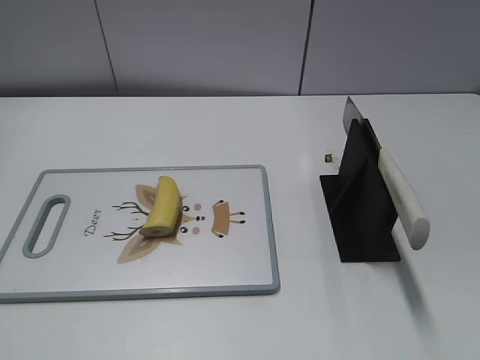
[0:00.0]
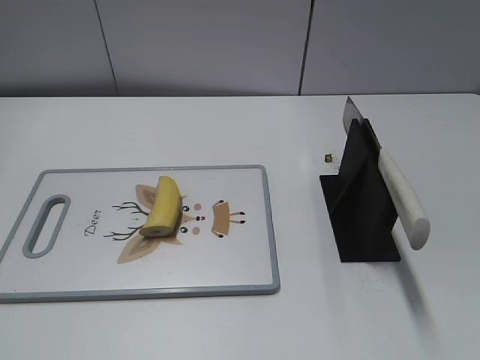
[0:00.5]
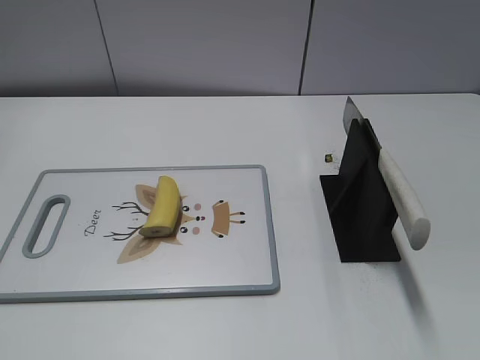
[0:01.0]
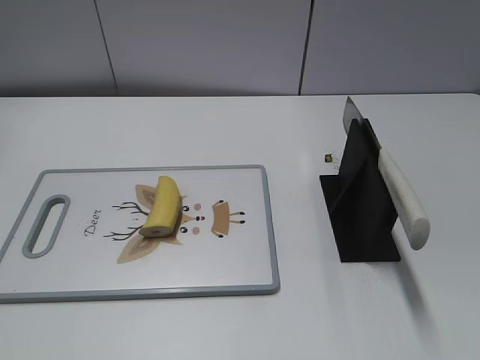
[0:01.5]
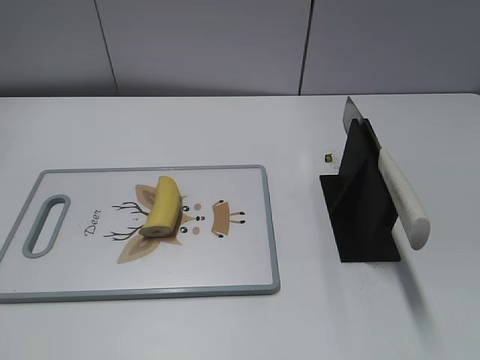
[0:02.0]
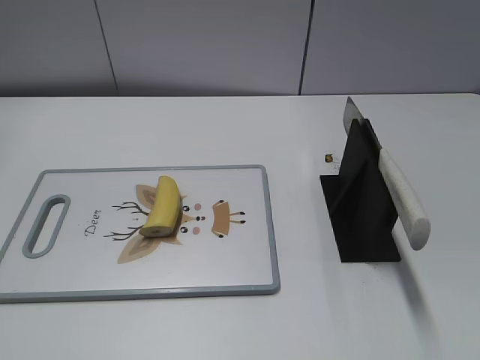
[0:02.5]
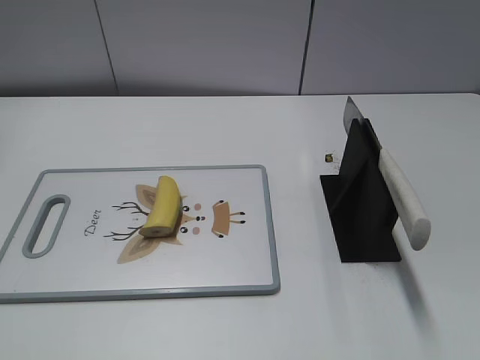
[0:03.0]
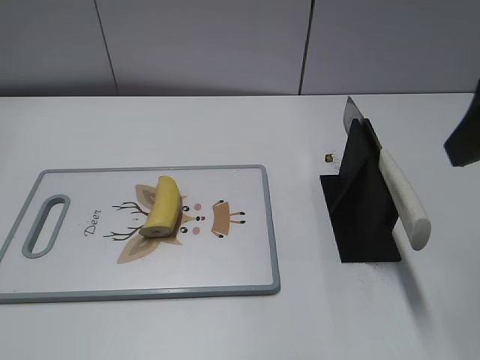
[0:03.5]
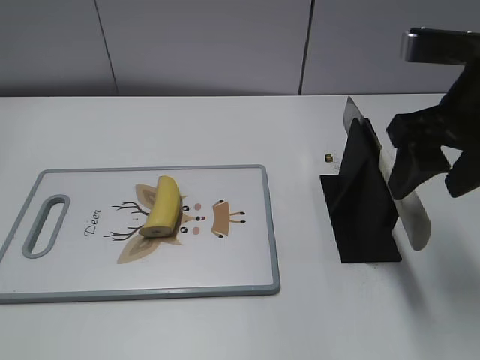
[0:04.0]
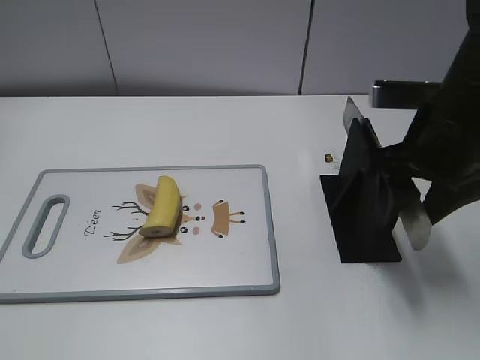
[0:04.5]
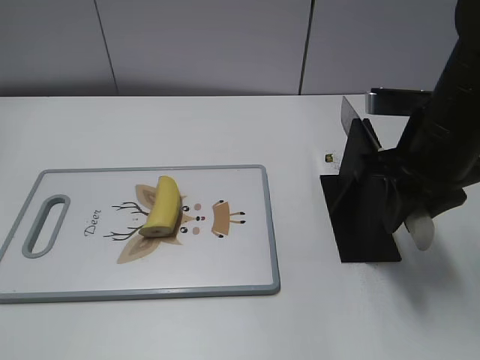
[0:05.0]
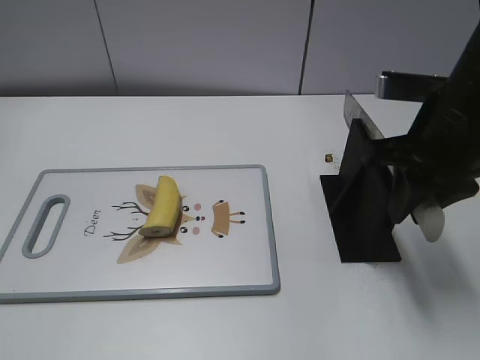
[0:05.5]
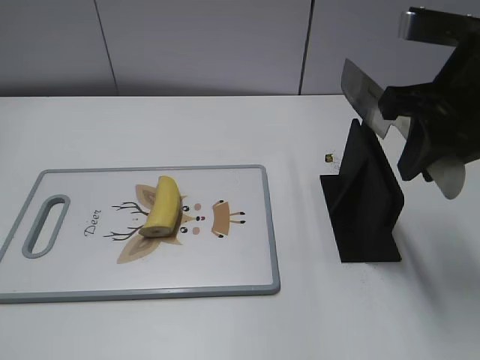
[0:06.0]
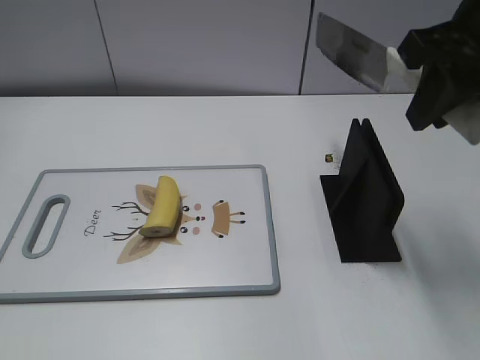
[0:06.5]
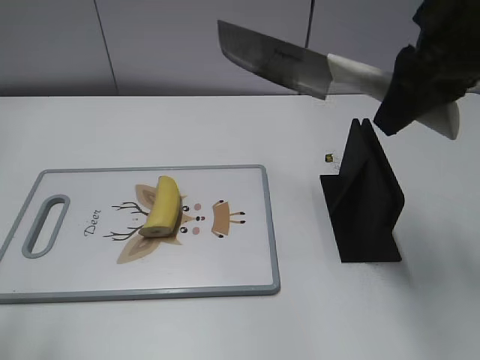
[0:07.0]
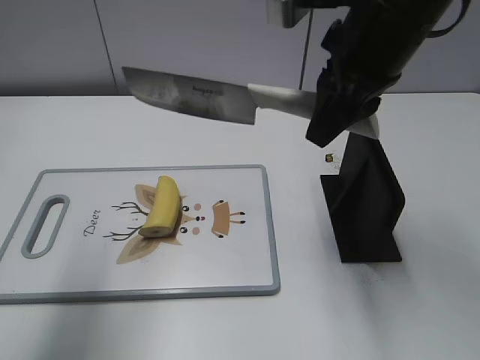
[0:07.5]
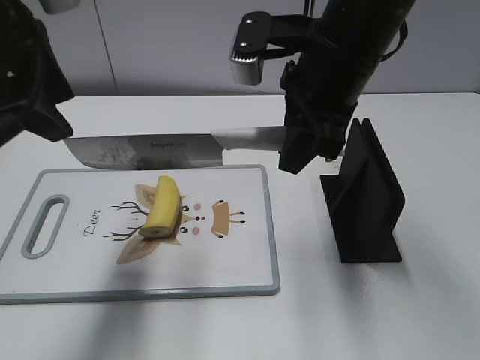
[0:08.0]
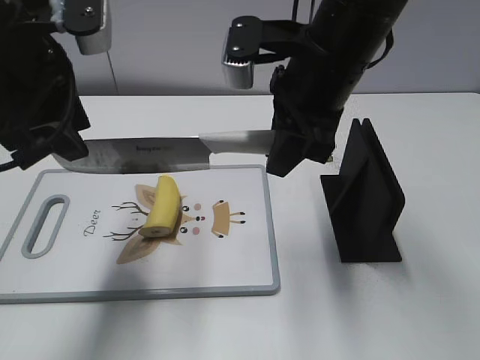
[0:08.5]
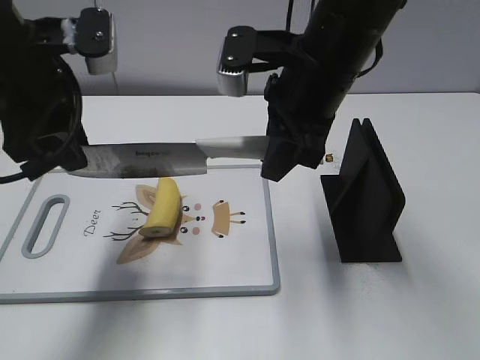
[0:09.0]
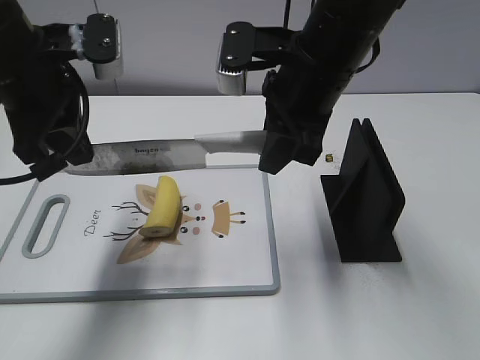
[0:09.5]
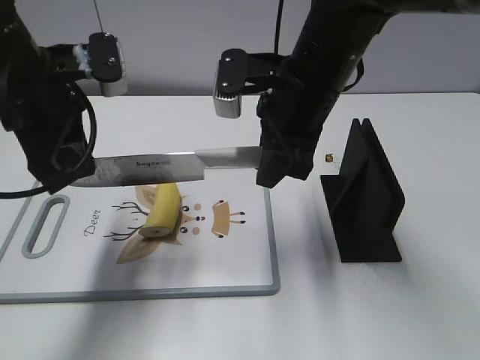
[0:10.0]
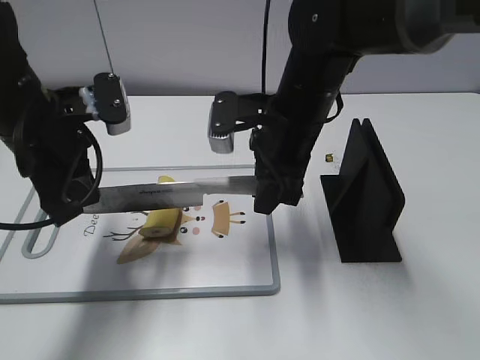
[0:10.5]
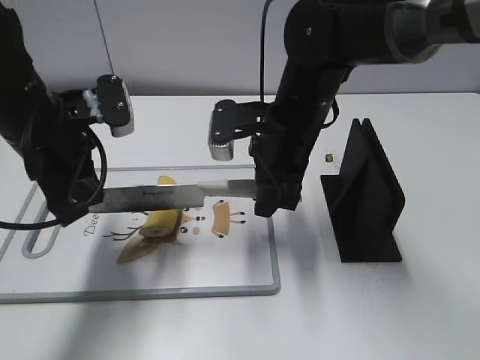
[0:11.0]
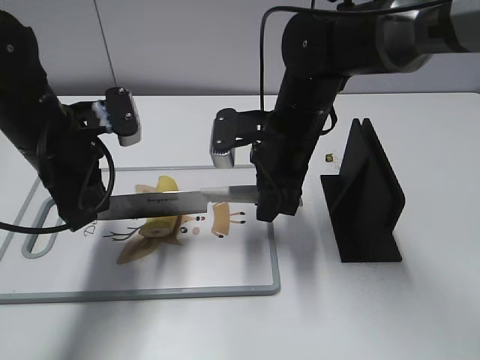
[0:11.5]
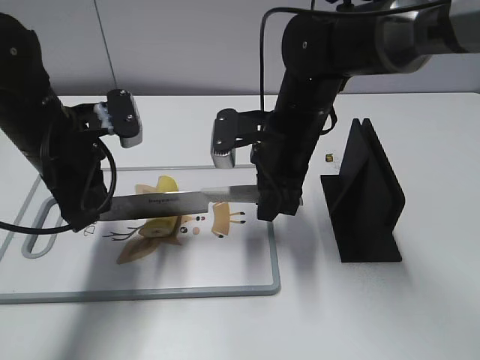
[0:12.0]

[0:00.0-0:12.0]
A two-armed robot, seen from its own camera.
Task of the whole recording: cut banana.
Step, 0:00.0 to 0:06.0: Grab the knife handle with your right hand.
Step, 0:06.5 to 0:10.5: Lift the knife with your right hand.
0:02.0 to 0:04.0: The right gripper travels forward by some 25 cm.
0:04.0 to 0:06.0: The right gripper closes.
0:06.0 to 0:08.0: The right gripper travels to the left by some 10 cm. The left gripper moves forward and to the right, some 30 cm.
0:08.0 to 0:10.0: The right gripper goes roughly 5 cm downward. Meanwhile the left gripper moves downward, some 10 cm, and closes up.
0:10.0 to 0:12.0: Both grippers travel together downward, roughly 5 cm.

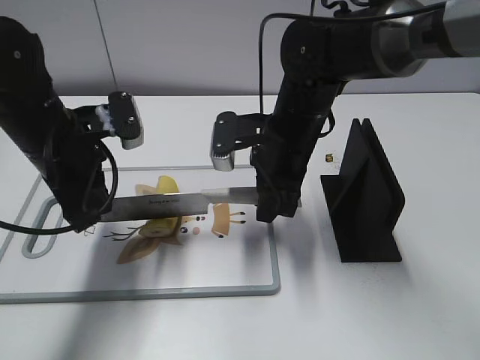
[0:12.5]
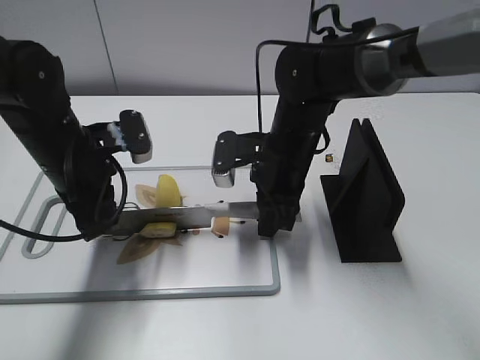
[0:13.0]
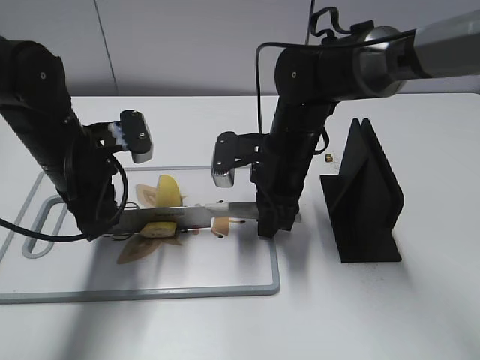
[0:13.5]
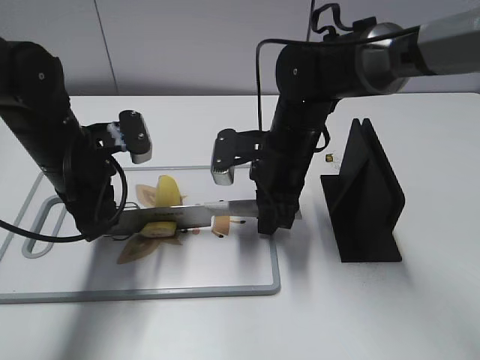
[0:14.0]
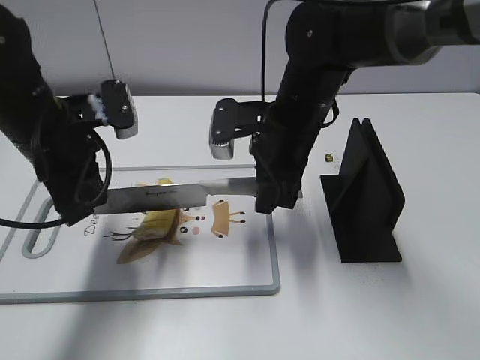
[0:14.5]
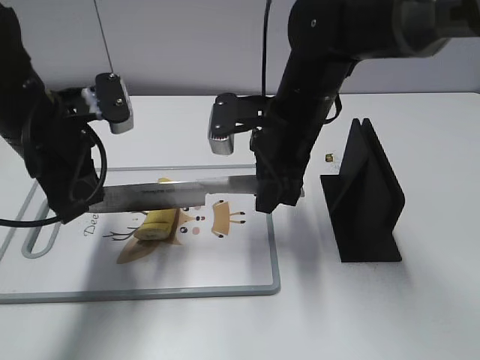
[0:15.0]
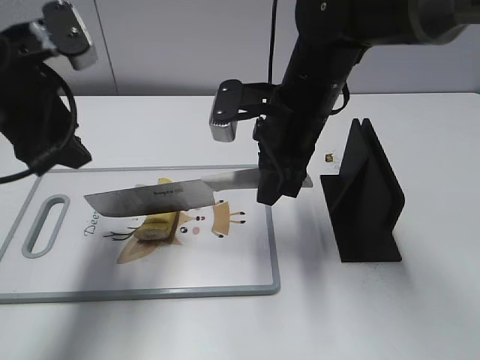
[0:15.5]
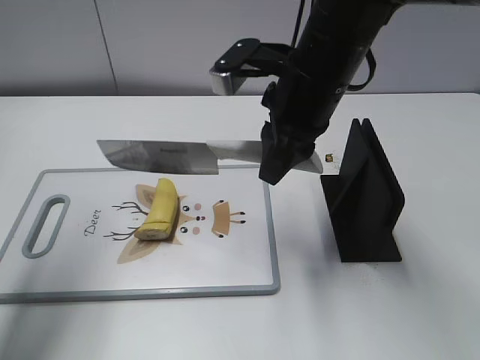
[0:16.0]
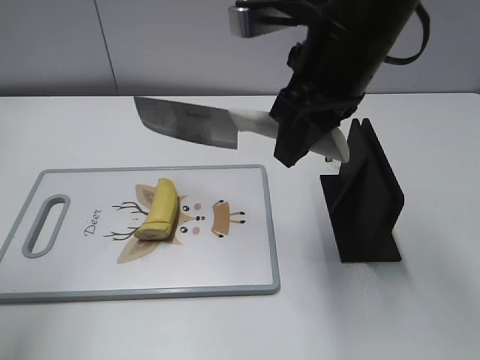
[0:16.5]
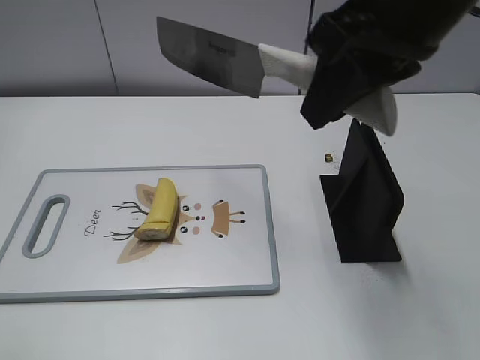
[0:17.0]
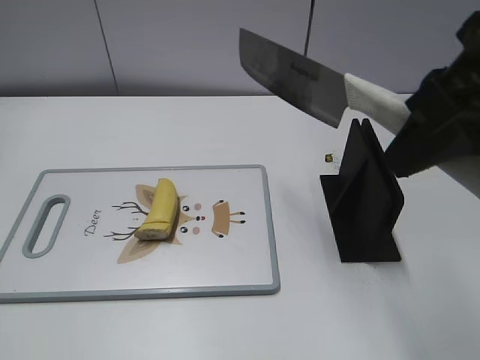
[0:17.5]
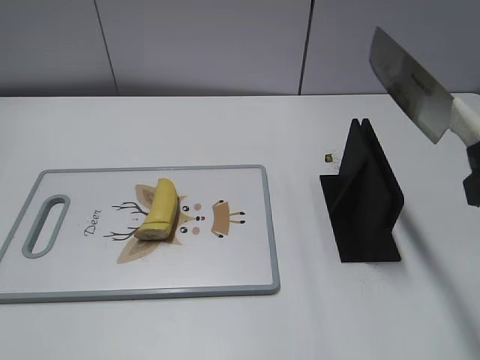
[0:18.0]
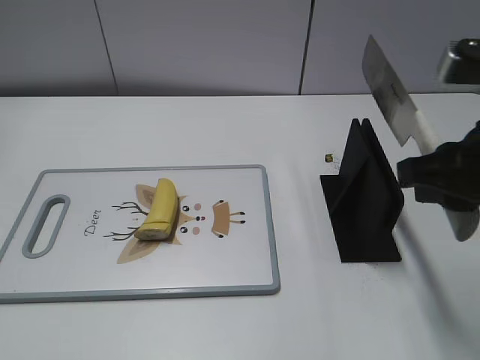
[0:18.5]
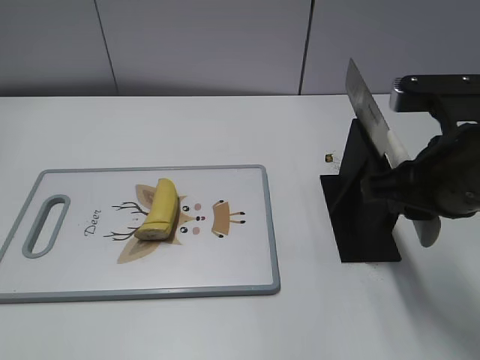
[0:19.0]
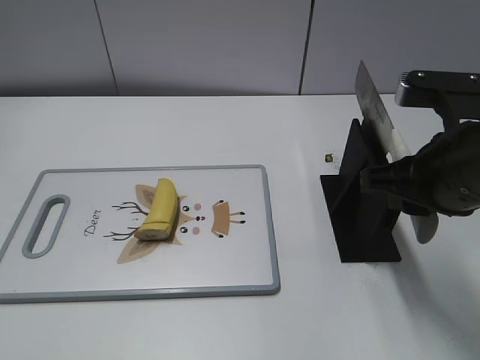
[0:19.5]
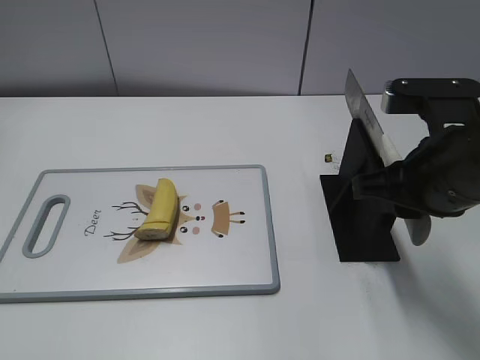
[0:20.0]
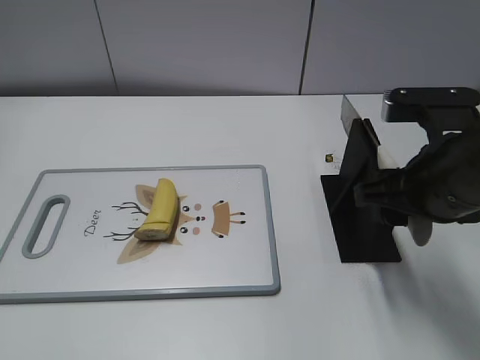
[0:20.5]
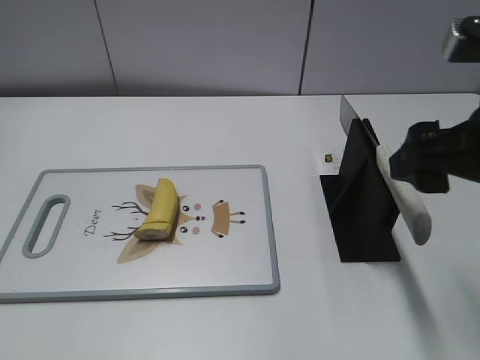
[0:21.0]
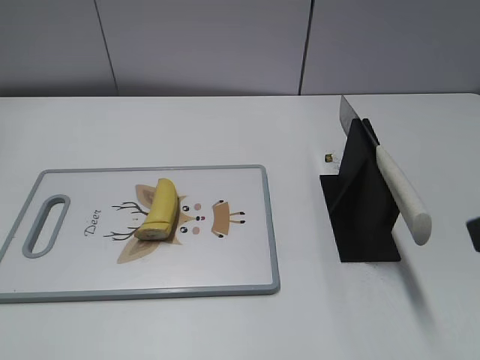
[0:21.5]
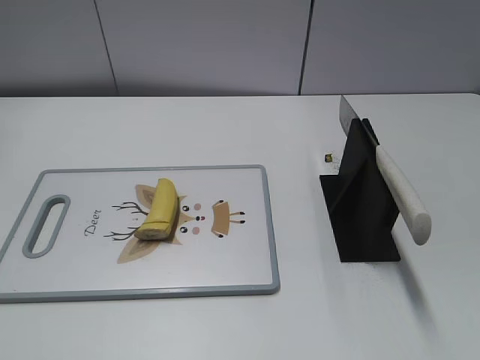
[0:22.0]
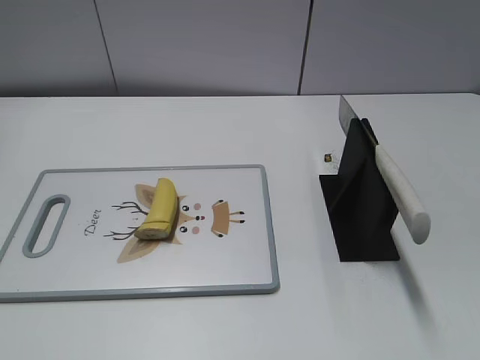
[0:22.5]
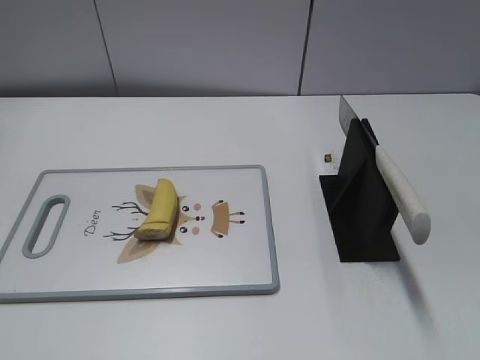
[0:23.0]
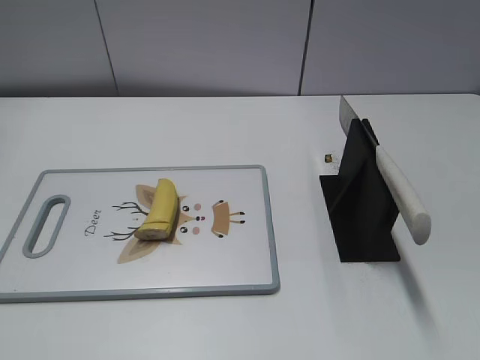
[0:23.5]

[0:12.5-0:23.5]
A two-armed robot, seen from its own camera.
Task of the whole recording: cut banana.
Step, 0:12.5 to 0:16.5: Cut the banana with your right hand.
Step, 0:17.0 to 0:19.0: Lift the knife with your right hand.
Step, 0:19.5 to 0:23.5: Place the knife on the storage rack with your right hand.
0:12.5 to 0:14.5: The grippers make only small movements.
0:14.5 to 0:16.0: The left gripper is displaced upward, to the left and backward by some 15 cm, and opens its fingers. The right gripper is displaced upward by roughly 10 cm.
0:16.0 to 0:18.0: The left gripper goes roughly 25 cm backward, while the right gripper moves backward, to the right and upward, approximately 25 cm.
0:18.0 to 0:20.0: The right gripper heads downward and forward, covering some 15 cm.
0:20.0 to 0:21.5: The right gripper shifts about 15 cm backward, upward and to the right, and opens up.
